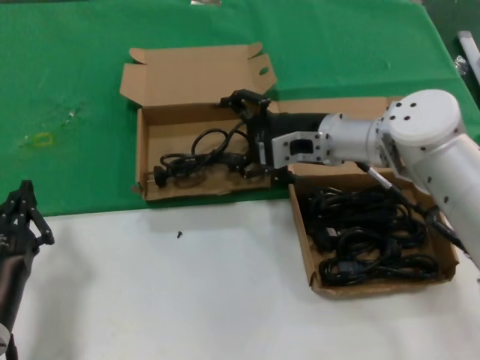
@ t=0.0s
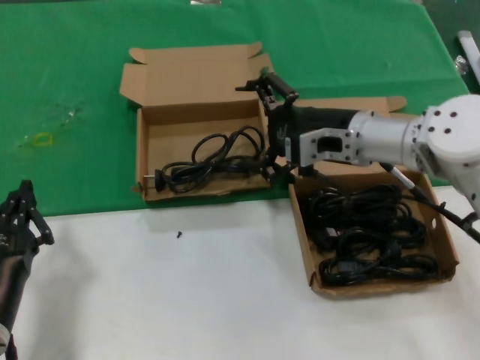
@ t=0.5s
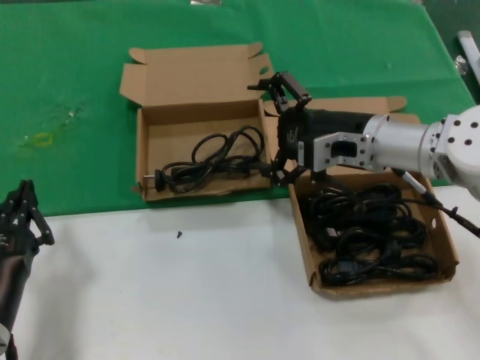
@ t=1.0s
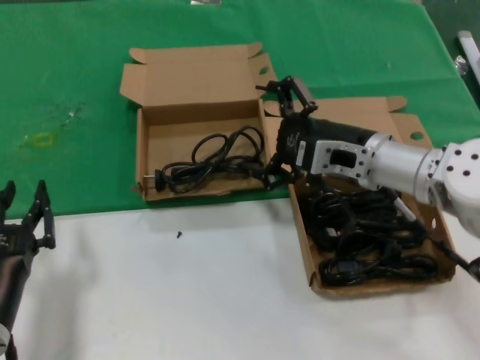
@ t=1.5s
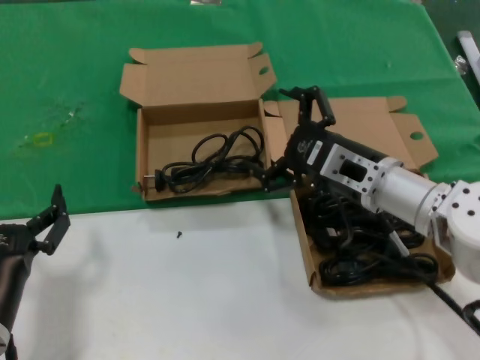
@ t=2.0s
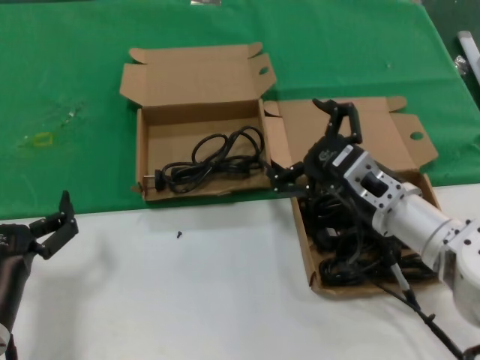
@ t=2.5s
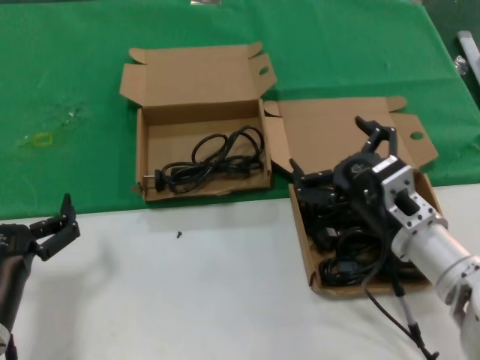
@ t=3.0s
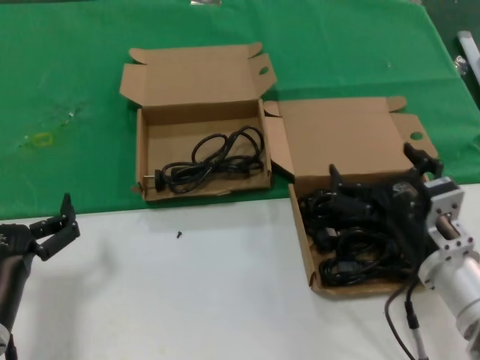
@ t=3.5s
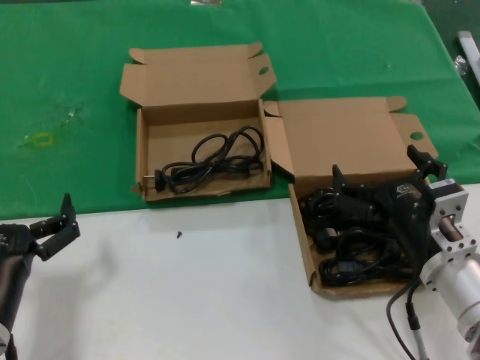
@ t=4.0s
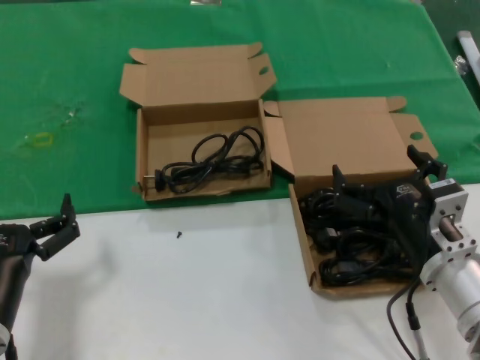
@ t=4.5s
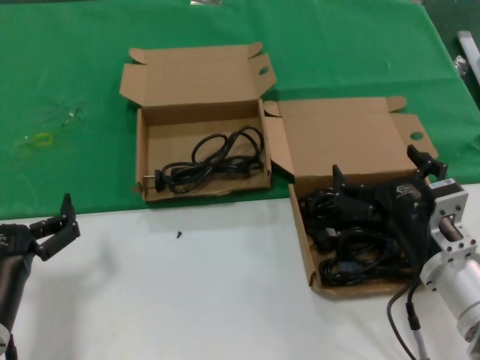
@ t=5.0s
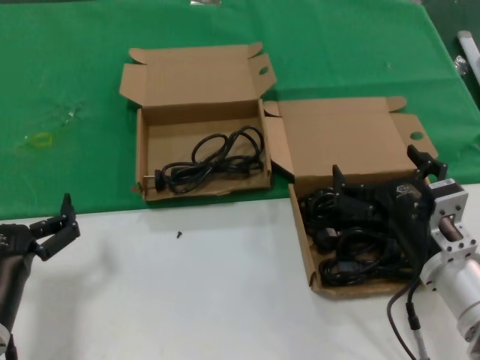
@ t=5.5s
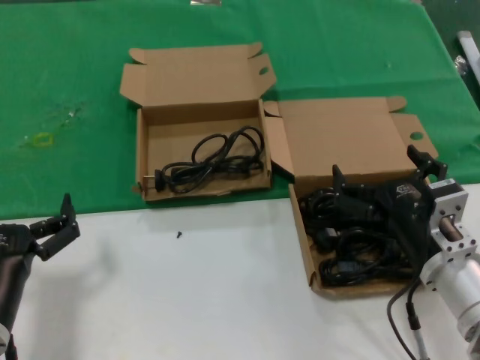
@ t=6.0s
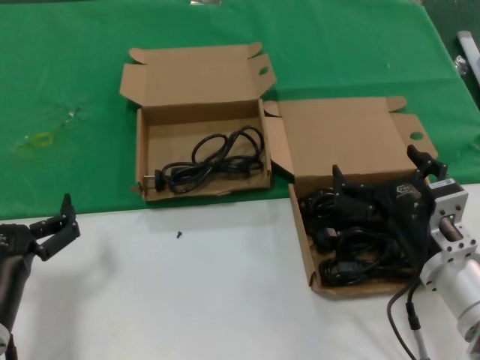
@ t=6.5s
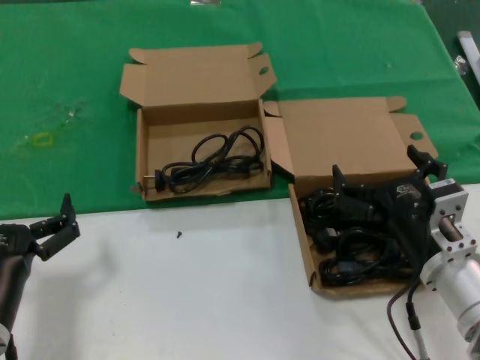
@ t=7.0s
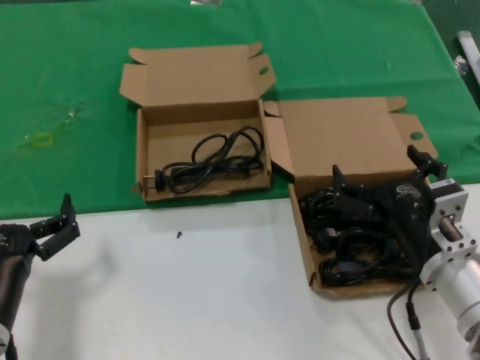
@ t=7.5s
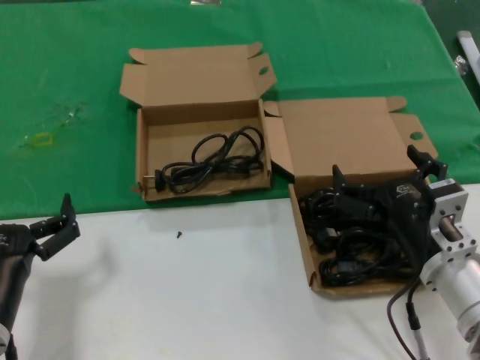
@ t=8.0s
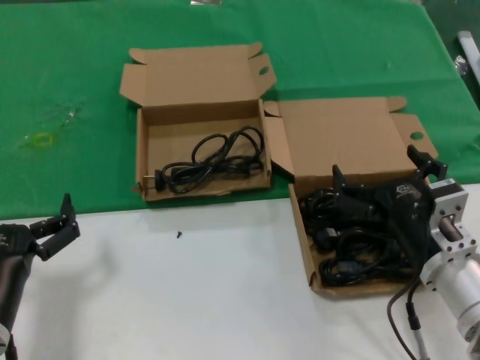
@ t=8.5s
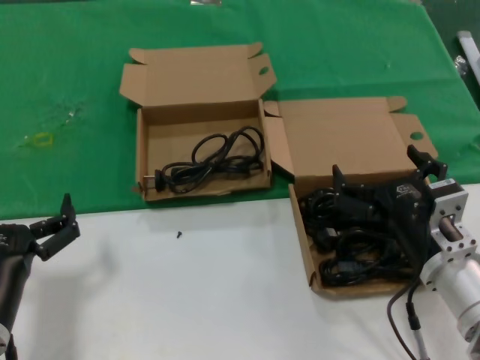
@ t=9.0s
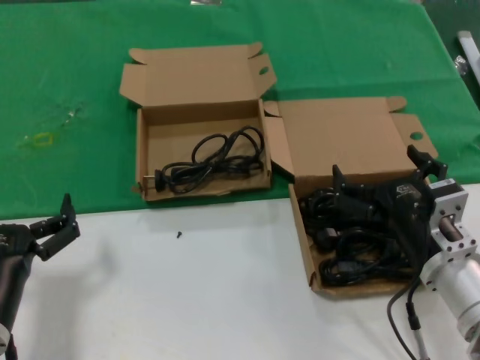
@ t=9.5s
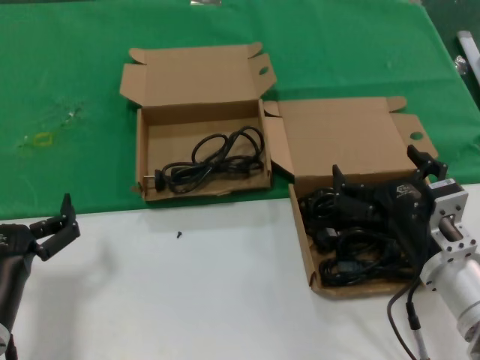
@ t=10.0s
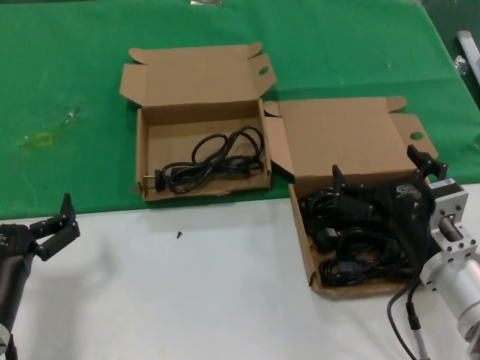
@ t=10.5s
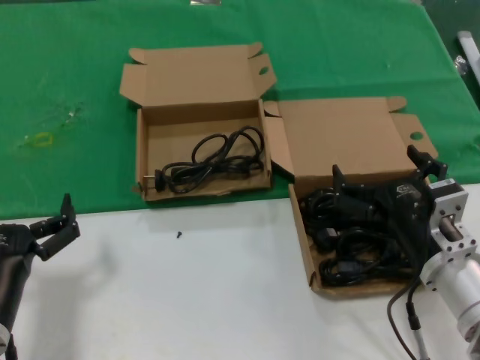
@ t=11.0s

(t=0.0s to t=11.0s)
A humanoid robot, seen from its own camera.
Task of the whole recording: take the parts from the box containing them and put them into an empty box.
t=0.0s - t=2.0s: The right hand travels backward by about 10 cm.
t=2.0s - t=3.5s: The right hand heads backward and downward, covering about 15 cm.
t=3.5s - t=11.0s: Both hands stay put.
